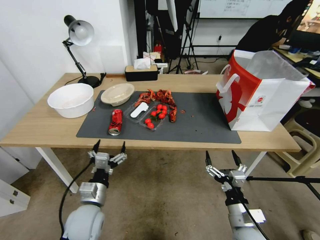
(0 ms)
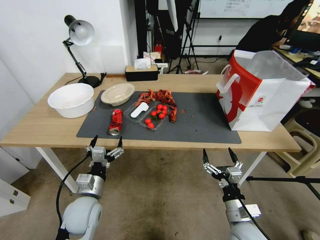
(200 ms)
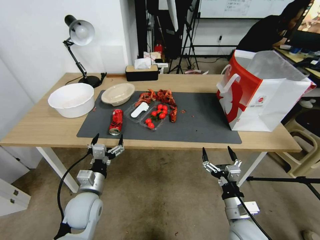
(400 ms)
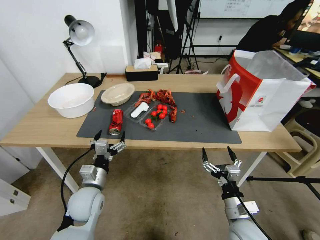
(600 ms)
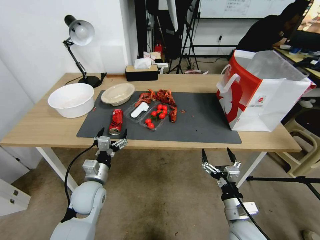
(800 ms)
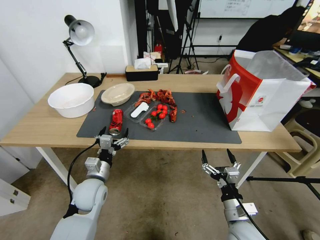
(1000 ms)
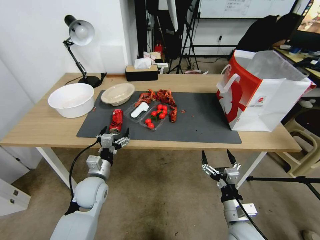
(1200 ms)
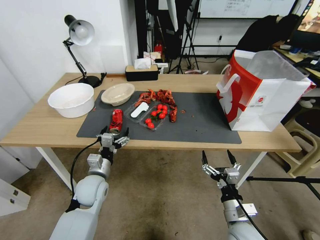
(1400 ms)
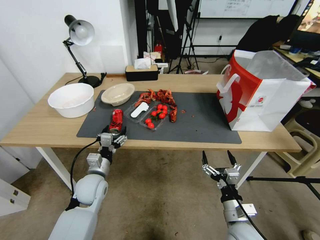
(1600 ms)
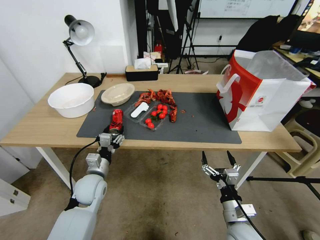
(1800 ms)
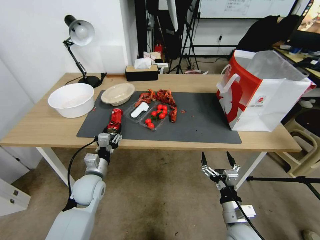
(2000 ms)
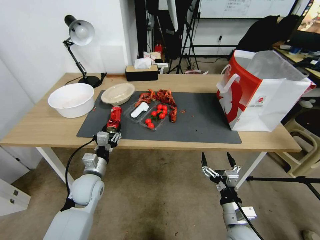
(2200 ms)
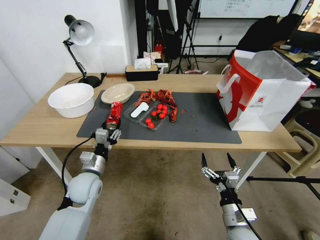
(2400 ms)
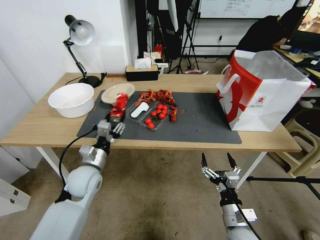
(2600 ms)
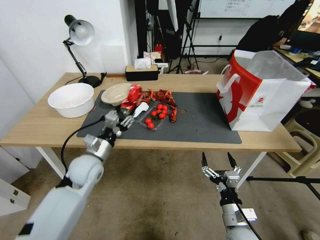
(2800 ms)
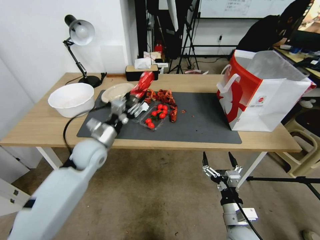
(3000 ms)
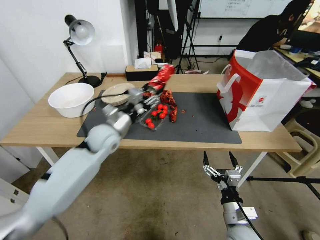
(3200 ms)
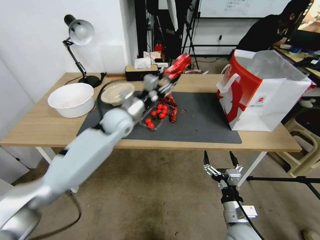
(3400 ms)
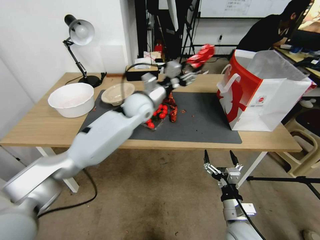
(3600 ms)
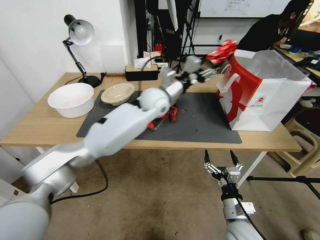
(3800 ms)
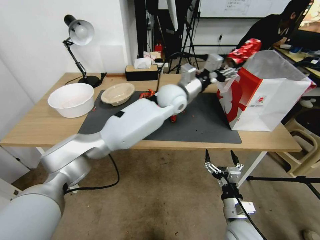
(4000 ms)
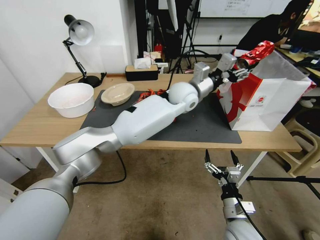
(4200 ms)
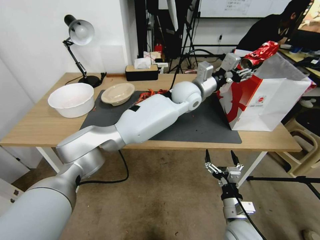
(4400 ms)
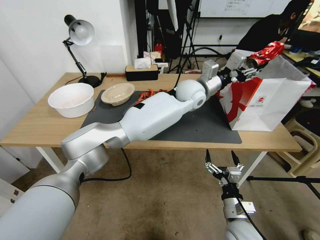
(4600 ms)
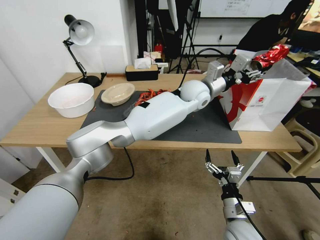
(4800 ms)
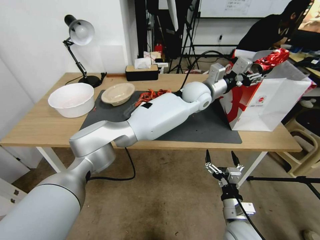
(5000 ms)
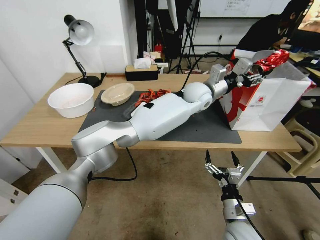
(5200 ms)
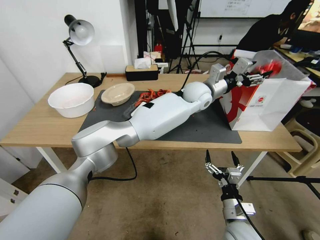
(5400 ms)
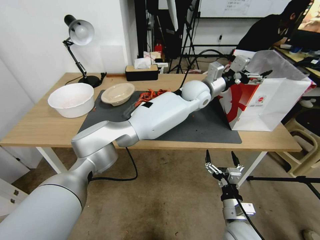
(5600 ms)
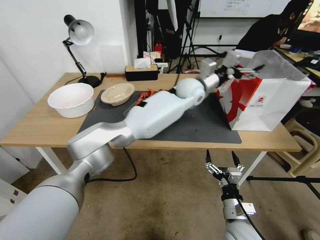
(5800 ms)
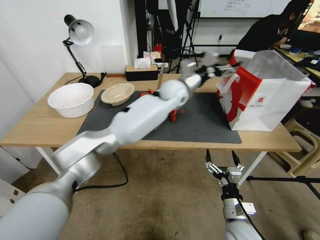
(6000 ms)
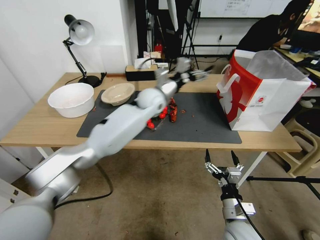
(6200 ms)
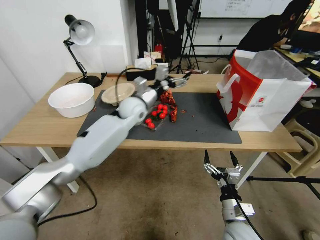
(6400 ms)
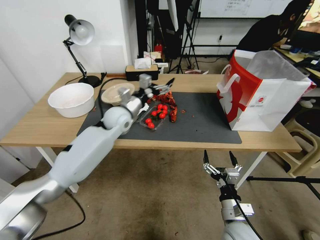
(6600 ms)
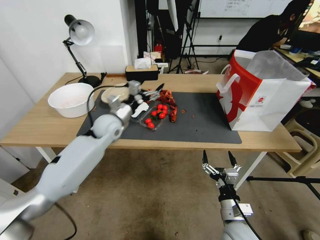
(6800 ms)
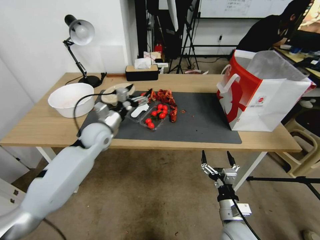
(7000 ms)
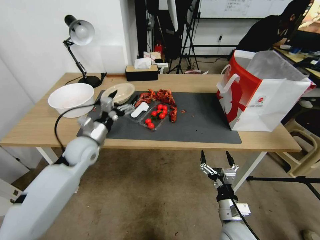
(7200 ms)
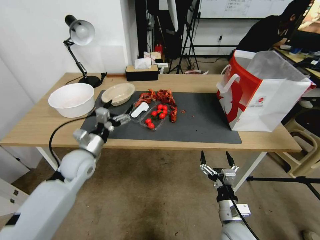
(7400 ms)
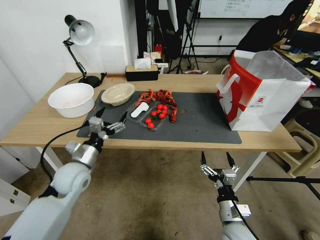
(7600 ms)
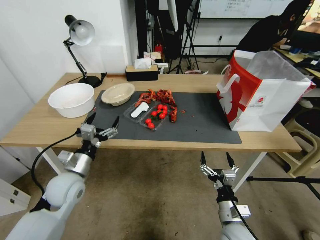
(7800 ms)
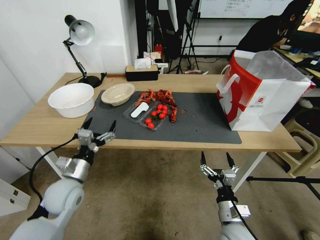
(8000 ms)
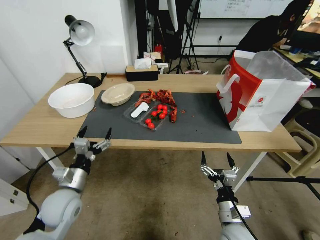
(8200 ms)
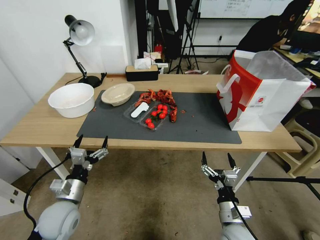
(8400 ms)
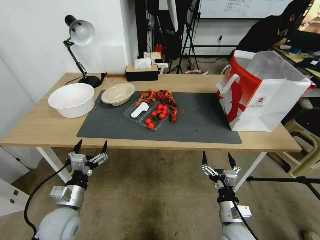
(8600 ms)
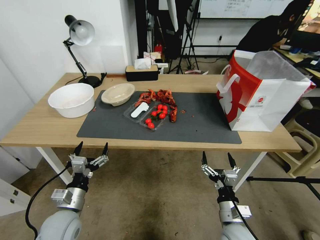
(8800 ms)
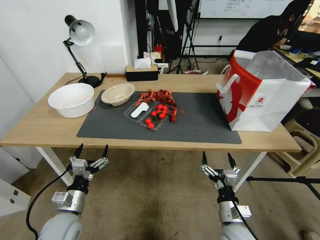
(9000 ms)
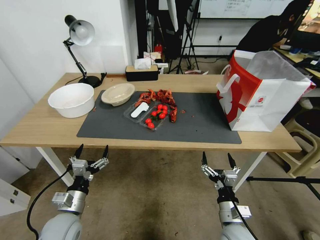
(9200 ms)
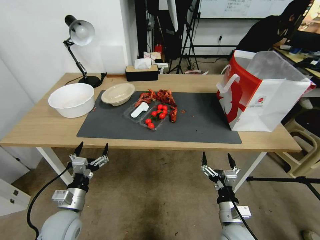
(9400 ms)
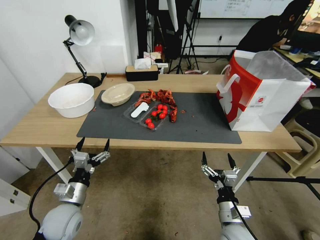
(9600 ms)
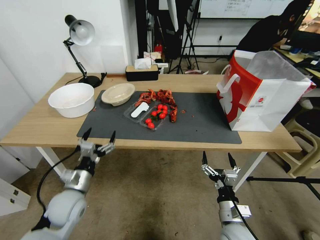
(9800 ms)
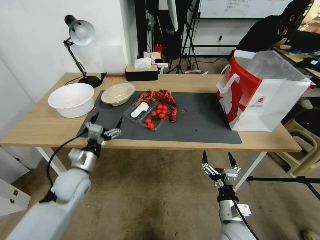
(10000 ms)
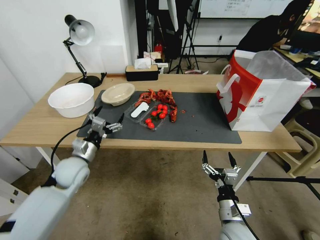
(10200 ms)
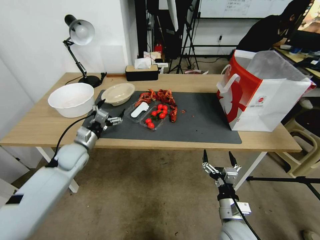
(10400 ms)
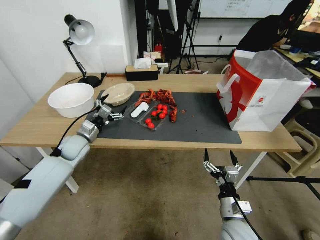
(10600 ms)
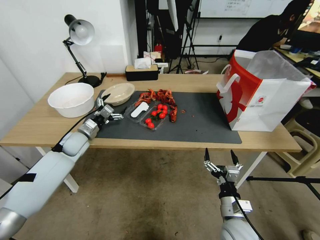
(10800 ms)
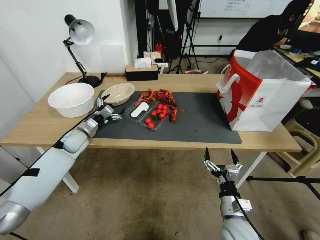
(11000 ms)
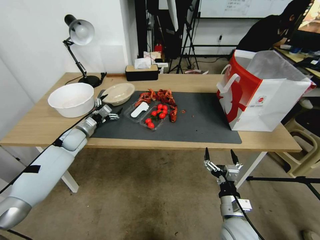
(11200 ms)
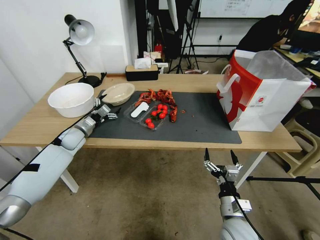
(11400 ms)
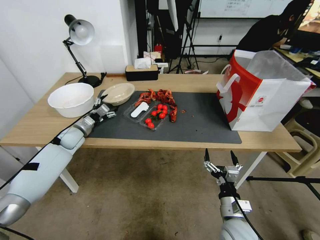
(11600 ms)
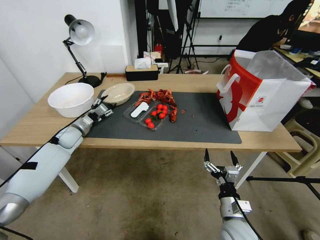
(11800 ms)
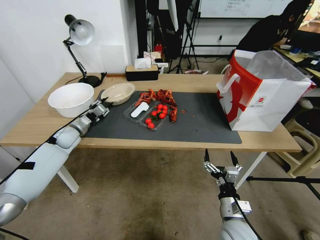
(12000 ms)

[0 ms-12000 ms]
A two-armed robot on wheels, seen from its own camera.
0 ms to 1600 ms: The left gripper shifts some 10 cm forward.
1600 ms to 3000 ms: The left gripper heads upward and forward, covering about 15 cm, and closes.
3000 ms to 4400 ms: The left gripper travels to the right, forward and upward by about 35 cm.
4400 ms to 6000 ms: The left gripper opens up.
6000 ms to 7600 ms: The left gripper moves to the left, backward and downward, about 40 cm.
7600 ms to 9000 ms: The left gripper travels backward and downward by roughly 20 cm.
9000 ms to 10400 ms: The left gripper moves forward, approximately 20 cm.
10400 ms to 12000 ms: The left gripper goes approximately 15 cm forward and to the left, and closes up.

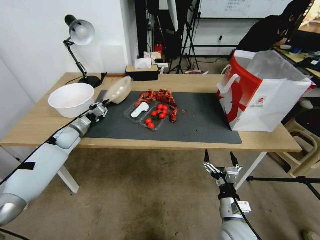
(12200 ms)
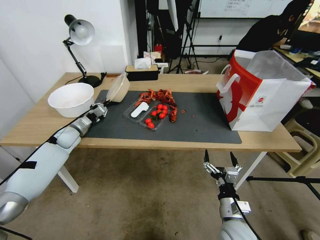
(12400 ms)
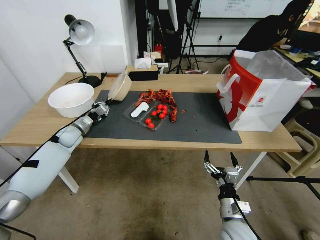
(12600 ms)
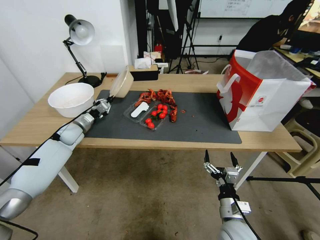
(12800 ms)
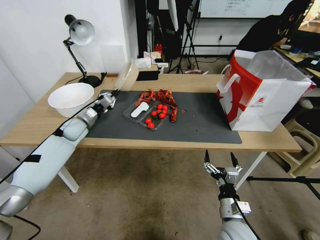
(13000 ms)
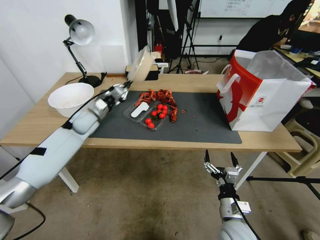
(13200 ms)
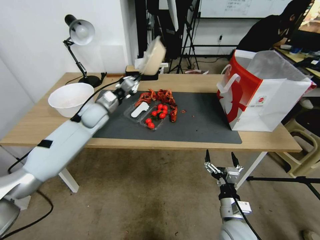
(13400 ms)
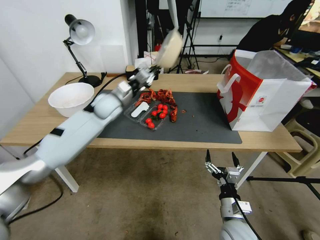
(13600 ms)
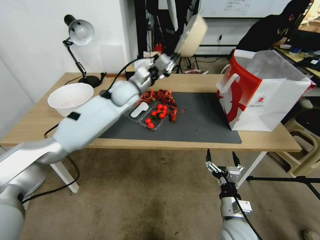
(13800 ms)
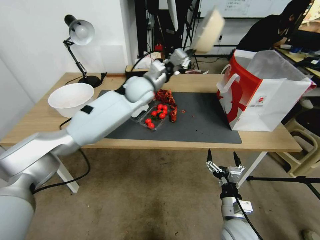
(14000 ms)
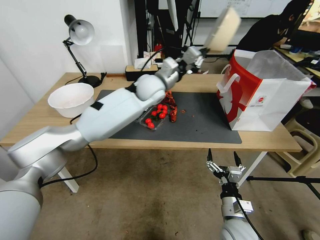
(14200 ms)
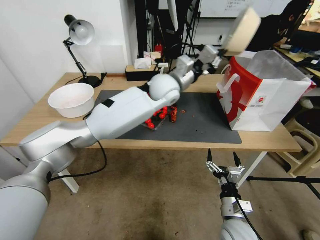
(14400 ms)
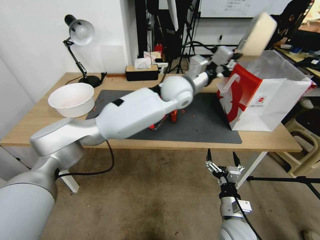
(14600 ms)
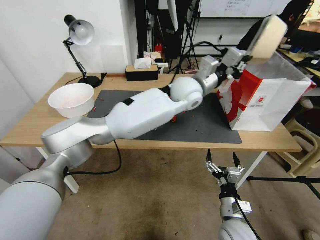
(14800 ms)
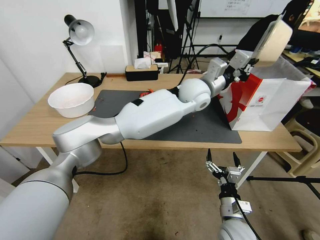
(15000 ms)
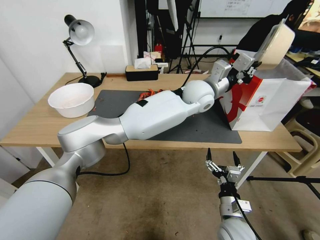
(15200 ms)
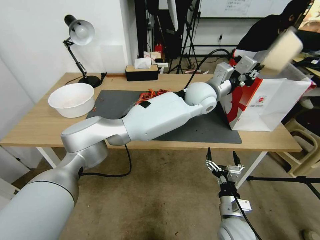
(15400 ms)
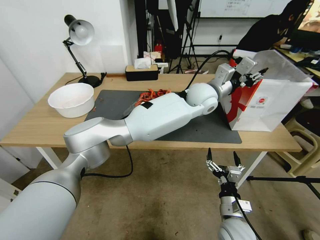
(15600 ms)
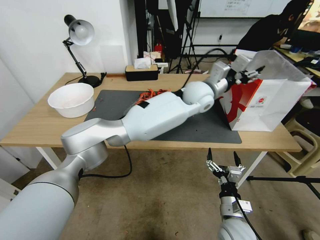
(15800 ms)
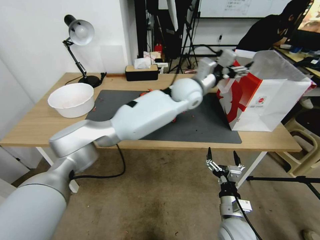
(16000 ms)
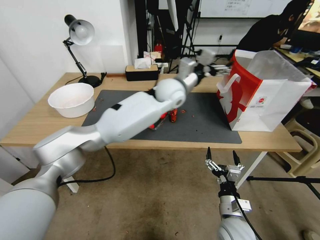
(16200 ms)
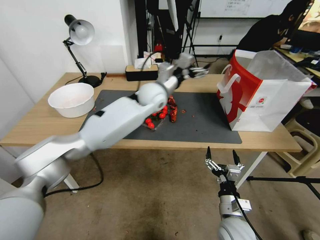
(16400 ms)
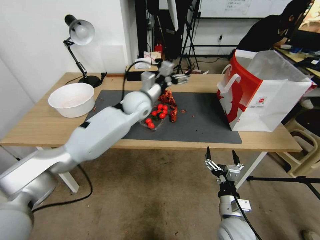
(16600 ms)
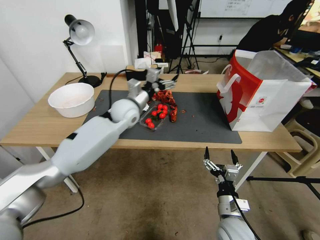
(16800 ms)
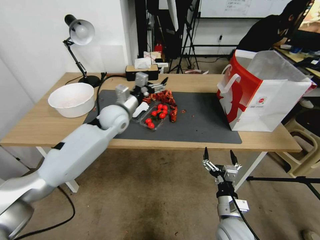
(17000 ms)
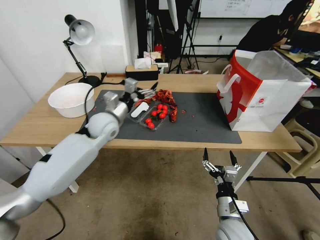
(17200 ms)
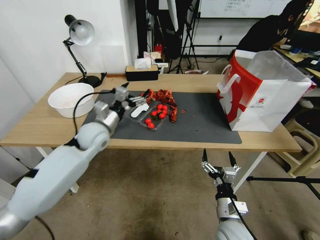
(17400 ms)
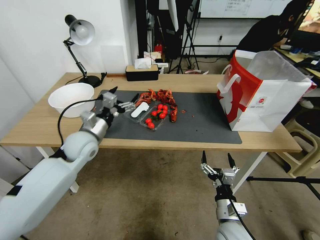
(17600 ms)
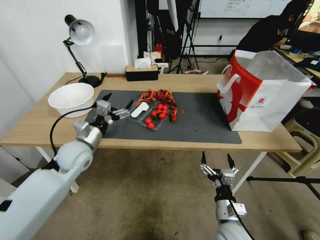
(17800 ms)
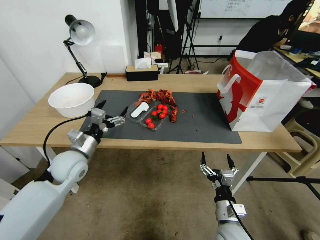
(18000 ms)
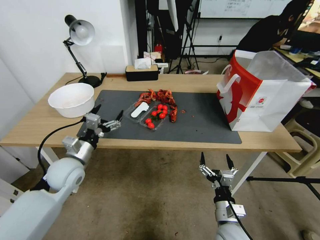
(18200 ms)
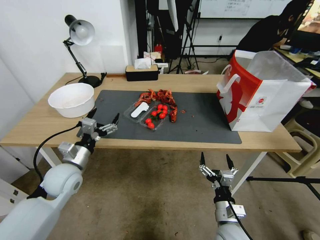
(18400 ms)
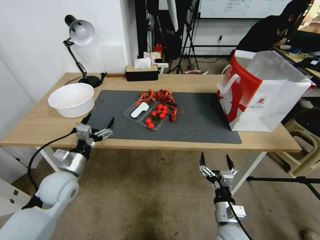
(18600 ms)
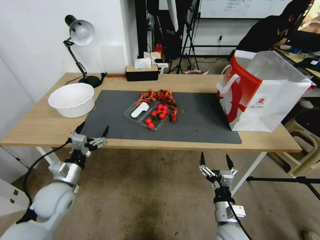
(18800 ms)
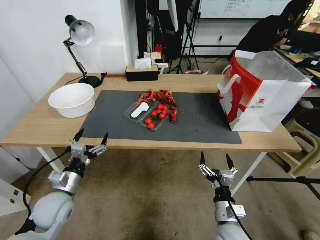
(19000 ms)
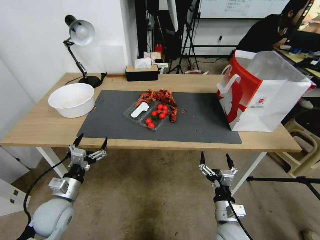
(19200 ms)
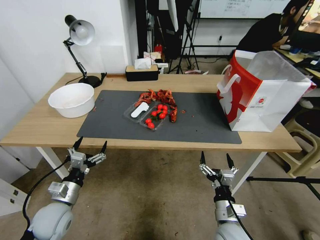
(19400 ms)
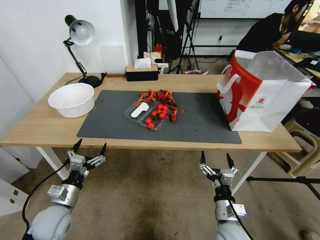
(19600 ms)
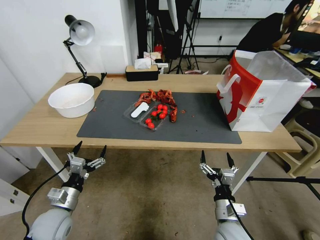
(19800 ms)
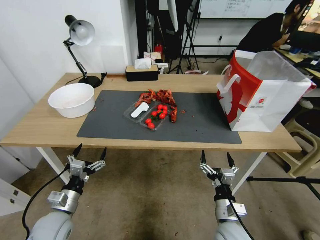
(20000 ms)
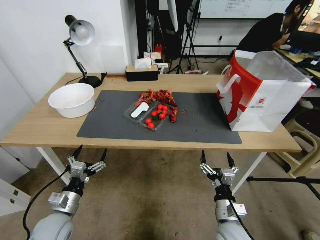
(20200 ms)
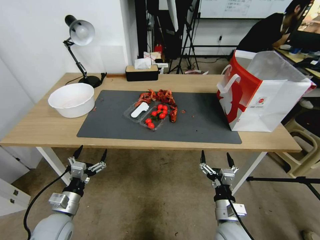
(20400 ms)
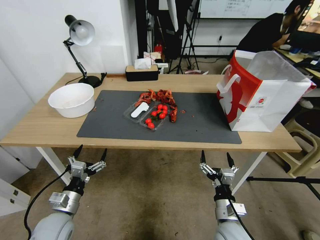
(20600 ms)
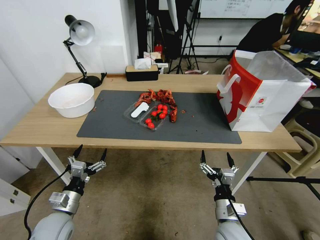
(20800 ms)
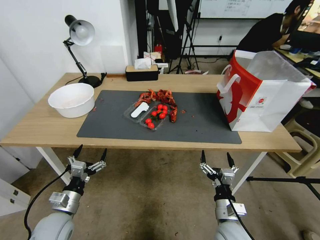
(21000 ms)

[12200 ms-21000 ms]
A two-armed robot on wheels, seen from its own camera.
12200 ms to 13600 ms: The left gripper travels to the right and upward by some 25 cm.
13600 ms to 15200 ms: The left gripper is displaced to the right by approximately 30 cm.
15200 ms to 16600 ms: The left gripper goes roughly 20 cm to the left, and opens.
16600 ms to 18000 ms: The left gripper shifts some 30 cm to the left, backward and downward.
18000 ms to 19600 ms: The left gripper is displaced backward and downward by some 15 cm.
19600 ms to 21000 ms: The grippers stay close to where they were, moving slightly.
